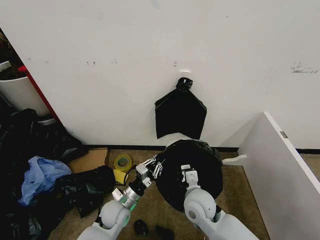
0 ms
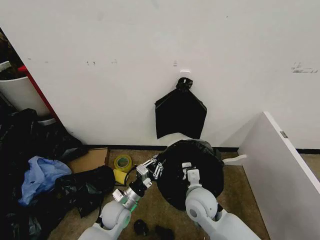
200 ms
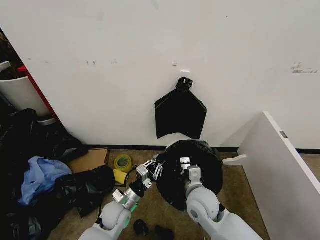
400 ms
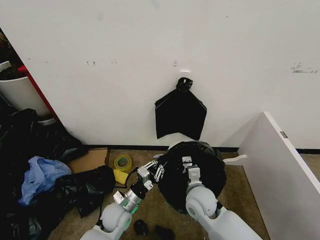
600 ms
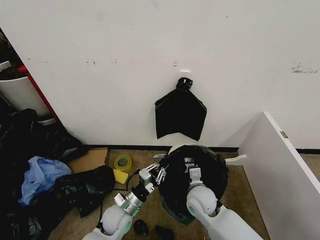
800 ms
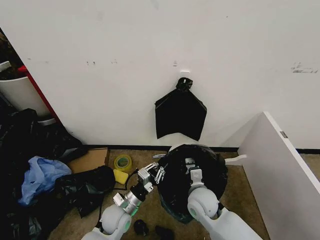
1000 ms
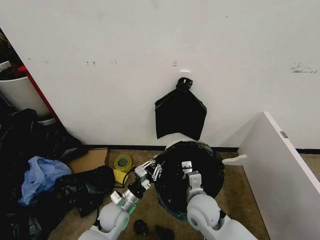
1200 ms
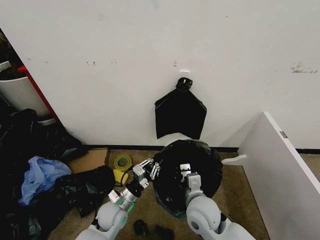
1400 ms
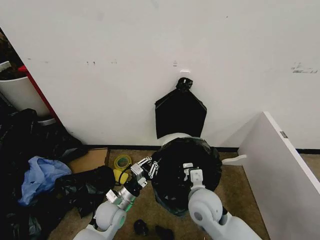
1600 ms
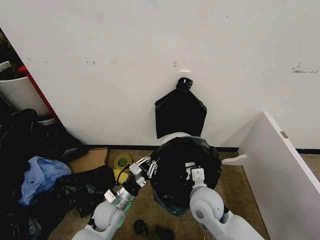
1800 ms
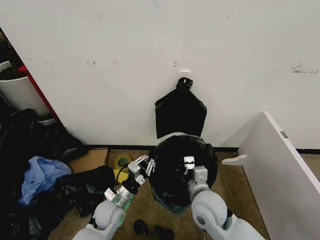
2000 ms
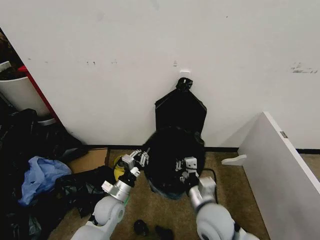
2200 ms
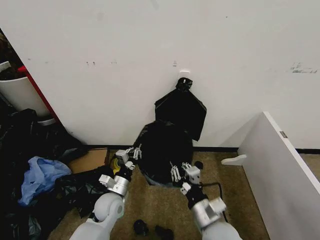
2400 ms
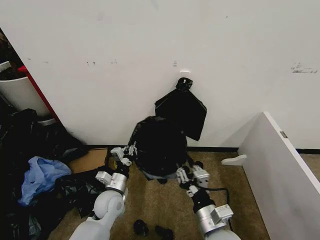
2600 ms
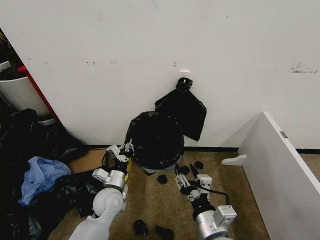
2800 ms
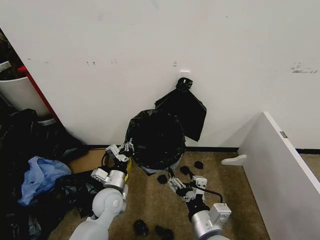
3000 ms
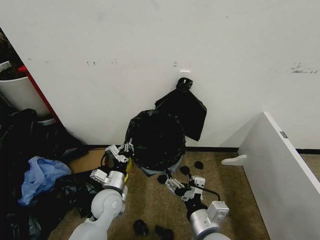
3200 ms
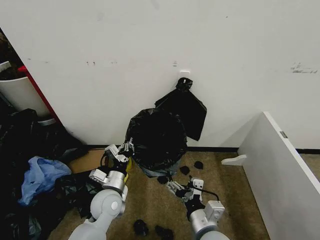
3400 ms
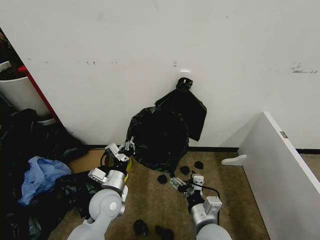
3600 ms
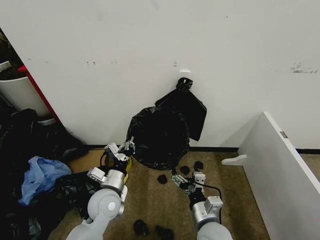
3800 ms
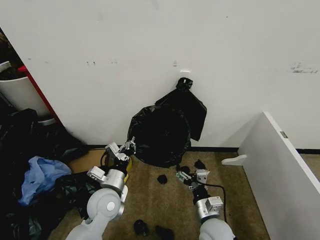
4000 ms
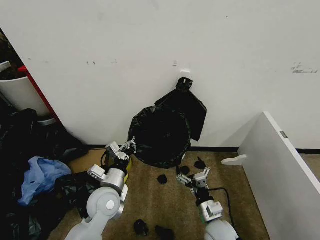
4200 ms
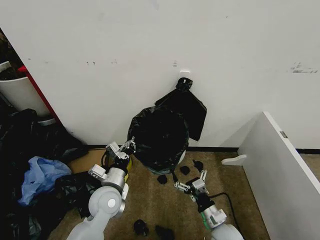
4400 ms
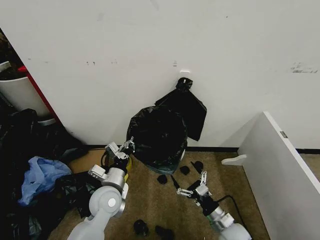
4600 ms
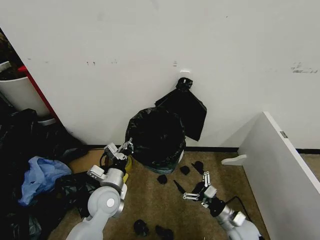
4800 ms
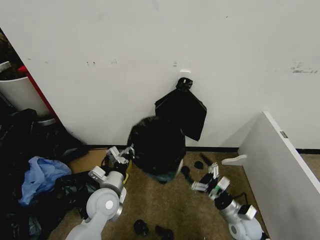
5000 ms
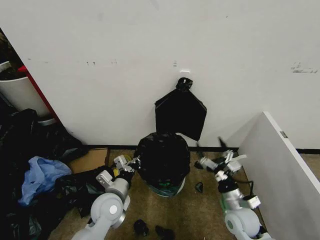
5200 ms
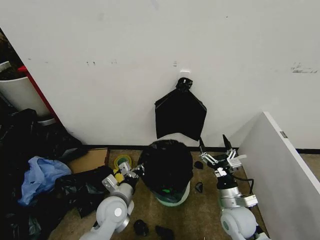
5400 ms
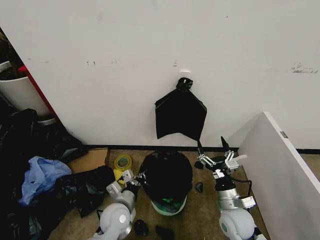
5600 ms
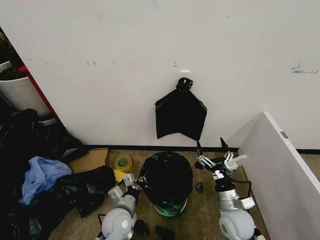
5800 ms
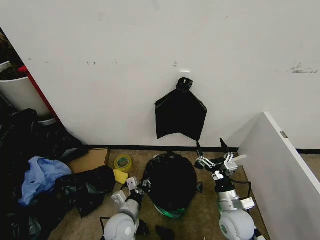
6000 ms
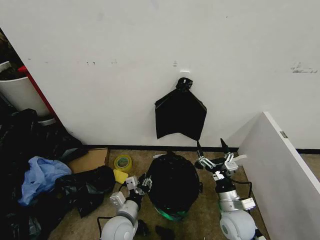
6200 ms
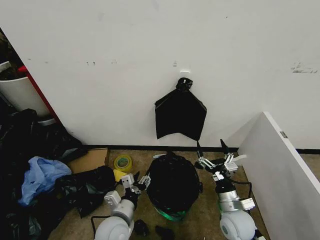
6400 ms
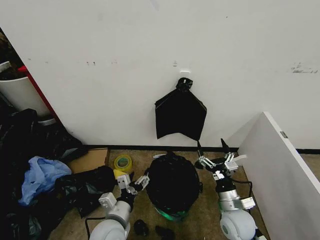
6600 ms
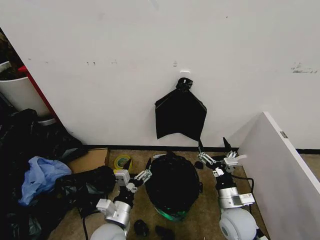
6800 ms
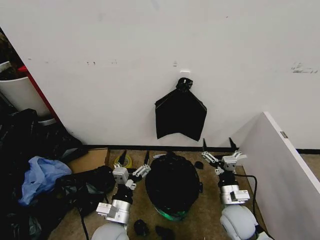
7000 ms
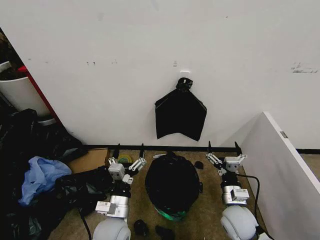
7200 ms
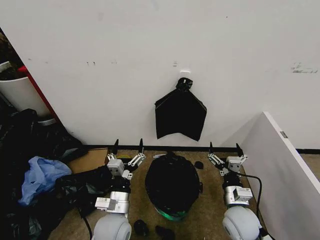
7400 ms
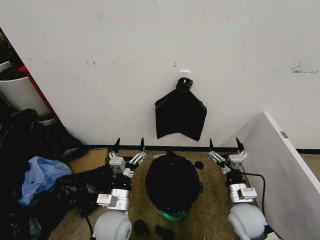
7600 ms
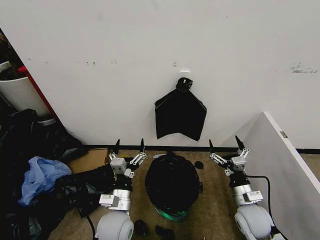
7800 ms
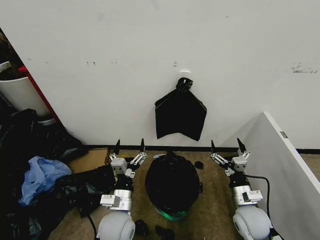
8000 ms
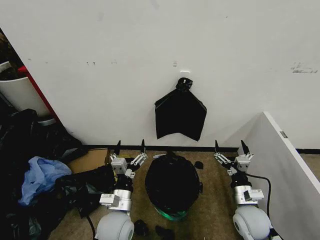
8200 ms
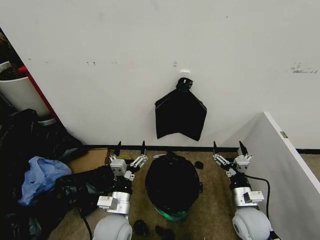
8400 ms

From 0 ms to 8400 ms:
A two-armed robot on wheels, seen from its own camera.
Task of the whole recording: Place the garbage bag over the trash bin.
From 0 ms to 1400 ms: There are only small adjustments of the grippers.
From 1400 ms to 2800 ms: The left gripper ends up some 5 cm from where it was, while the right gripper travels backward by roughly 10 cm, and opens up.
From 2800 ms to 4200 ms: The left gripper is displaced upward by roughly 5 cm; the right gripper is displaced downward and forward by roughly 15 cm, and opens.
From 4200 ms to 5600 ms: The right gripper goes roughly 5 cm to the right; the left gripper moves downward, approximately 10 cm.
From 5600 ms to 7000 ms: The left gripper moves backward, about 5 cm, and opens its fingers.
From 7000 ms to 8400 ms: The grippers move only a little.

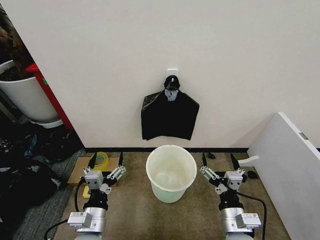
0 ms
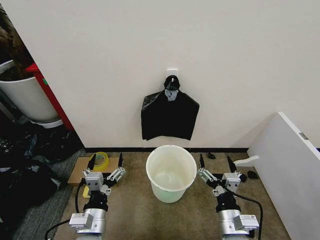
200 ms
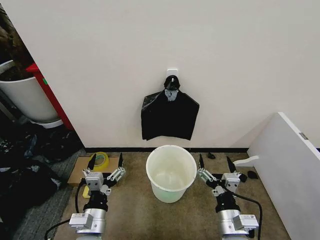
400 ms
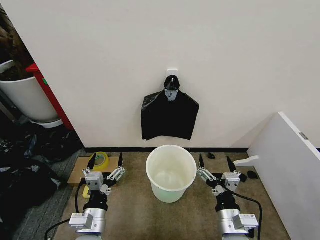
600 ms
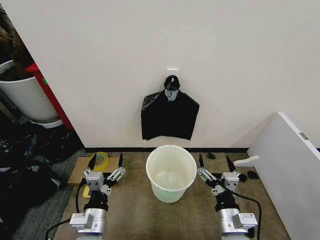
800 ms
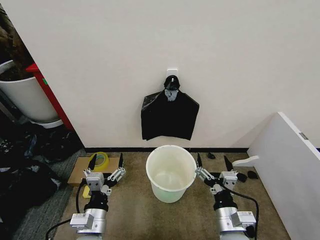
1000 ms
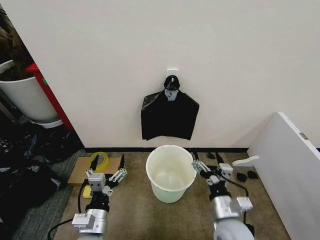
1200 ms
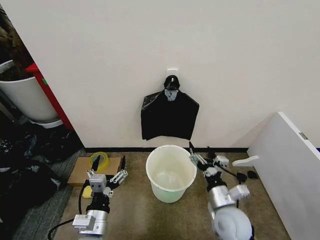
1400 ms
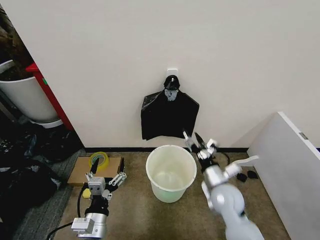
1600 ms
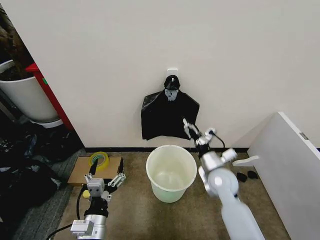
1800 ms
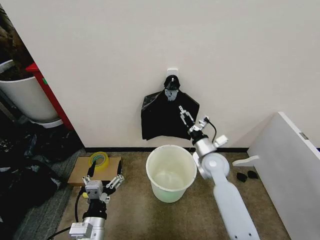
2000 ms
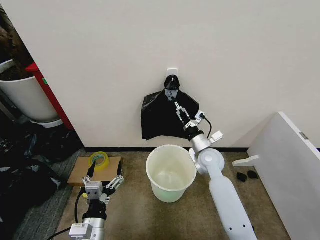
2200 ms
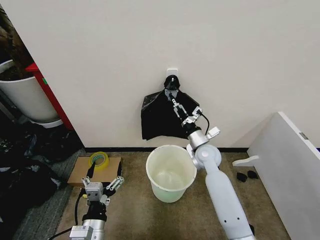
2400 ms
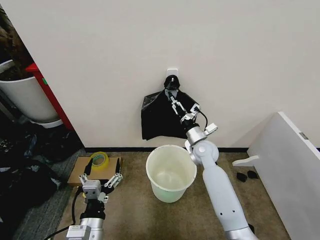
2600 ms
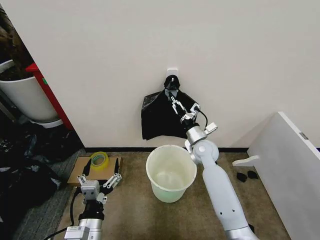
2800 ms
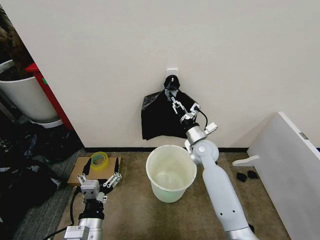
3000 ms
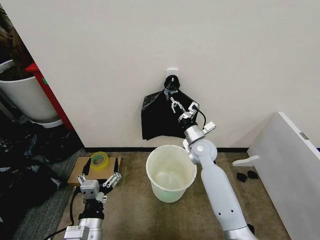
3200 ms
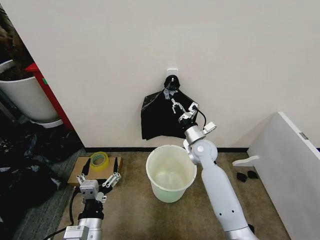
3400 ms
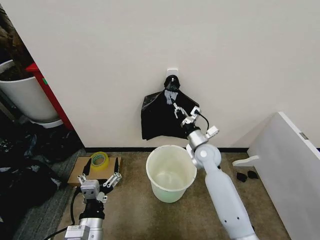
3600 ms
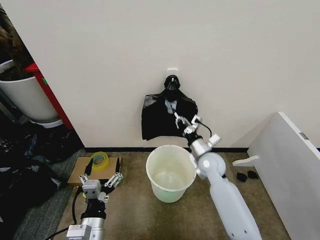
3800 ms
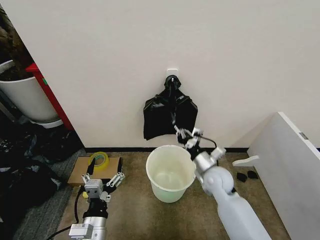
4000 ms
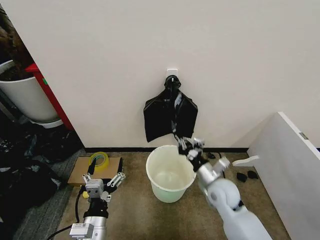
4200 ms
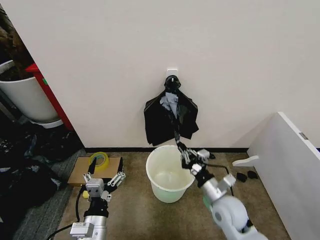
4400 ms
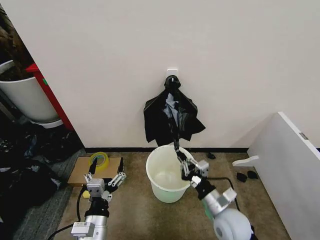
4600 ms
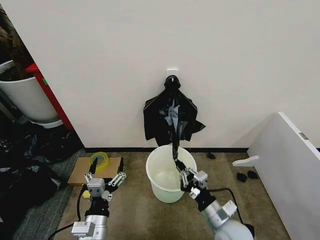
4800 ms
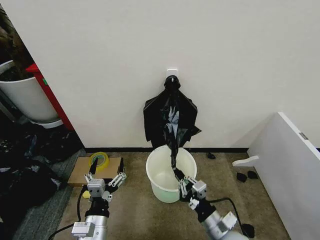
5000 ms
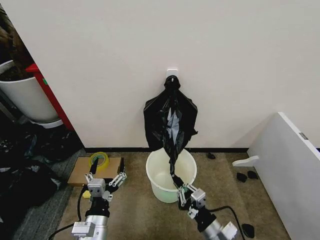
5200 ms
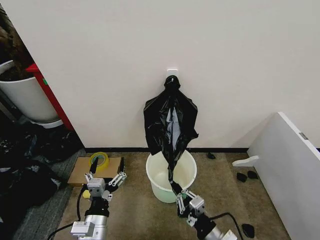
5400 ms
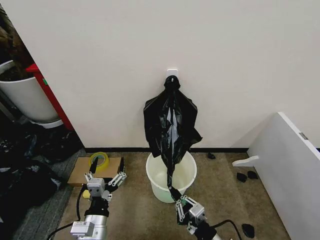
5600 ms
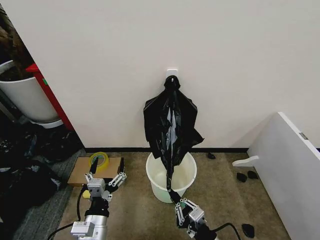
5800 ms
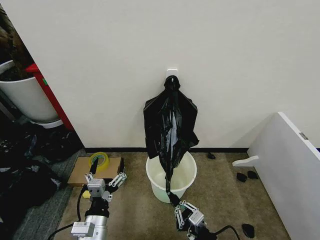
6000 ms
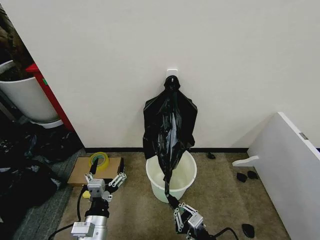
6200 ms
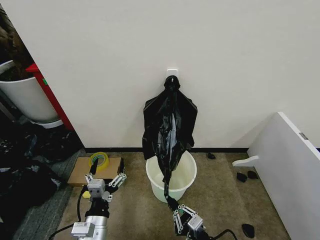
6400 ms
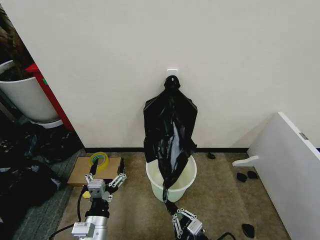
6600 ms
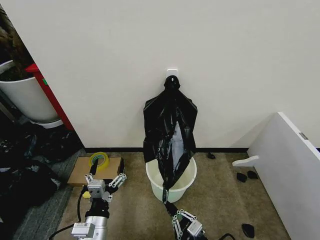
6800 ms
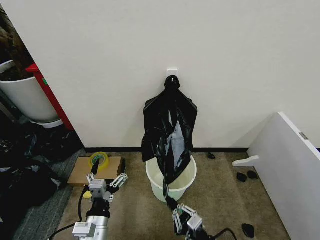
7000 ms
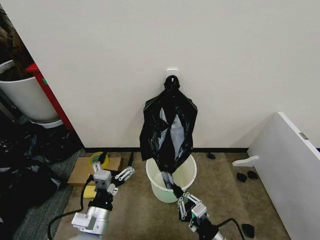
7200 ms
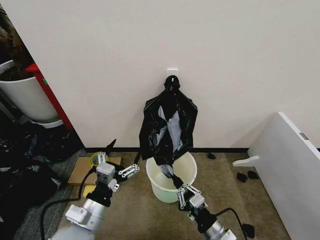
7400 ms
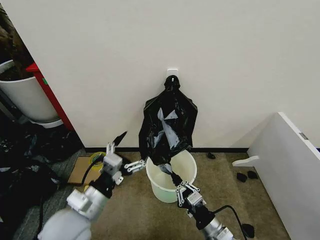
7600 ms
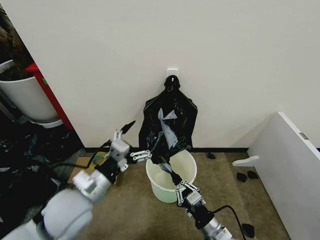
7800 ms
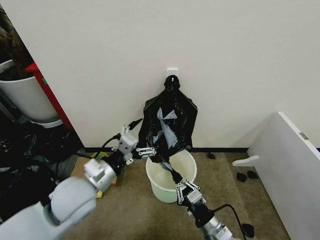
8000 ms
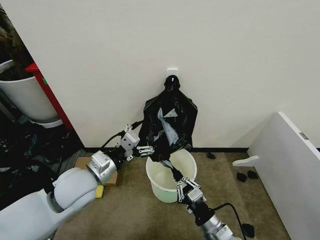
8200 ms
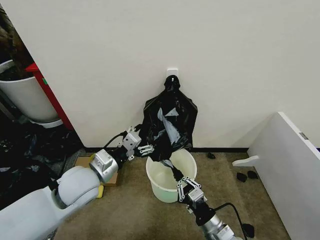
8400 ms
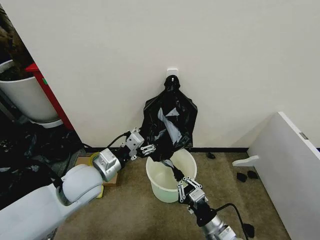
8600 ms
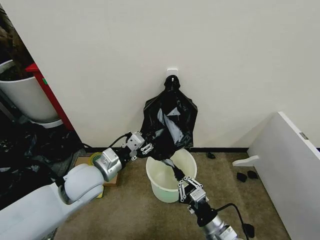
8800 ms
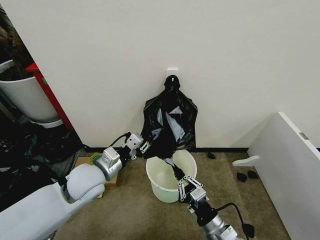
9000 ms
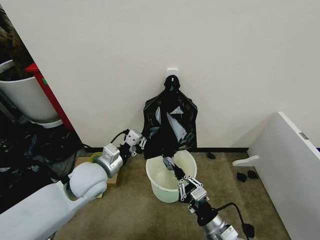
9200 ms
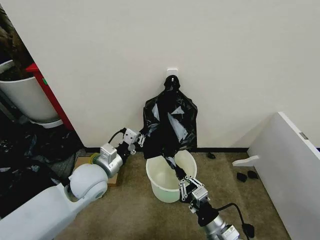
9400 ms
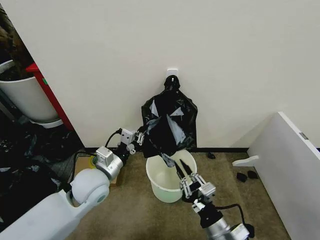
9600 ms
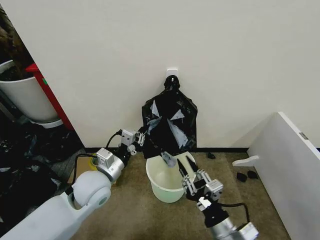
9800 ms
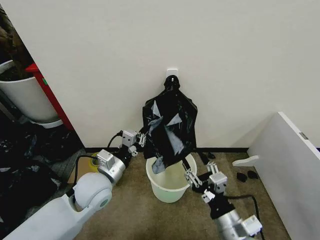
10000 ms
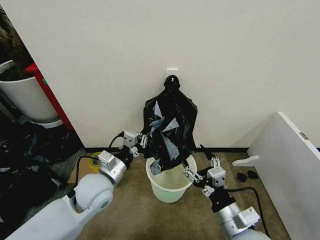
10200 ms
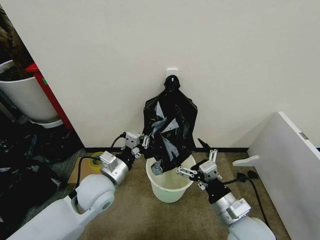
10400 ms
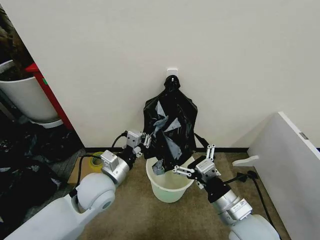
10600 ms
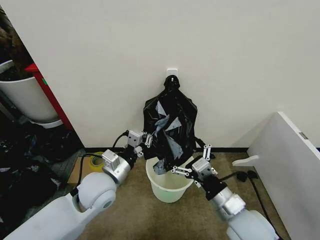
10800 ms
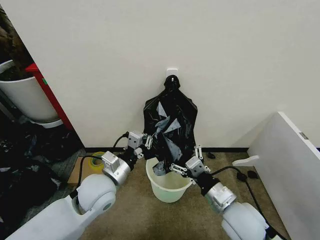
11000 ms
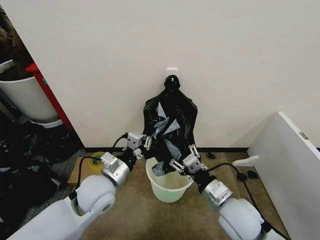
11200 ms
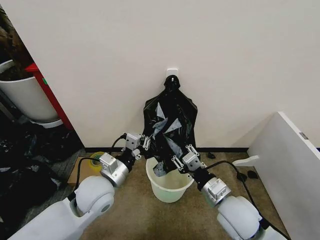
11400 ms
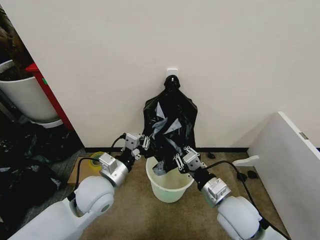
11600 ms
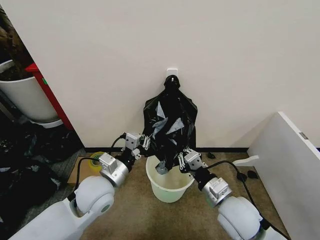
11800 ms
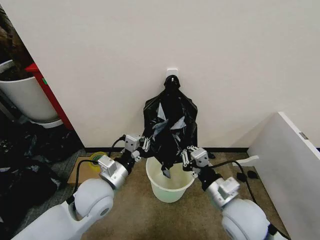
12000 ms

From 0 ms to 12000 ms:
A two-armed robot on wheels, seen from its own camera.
Task of the whole recording: Place the garbage bag over the trash bin.
From 1600 ms to 3000 ms: The right gripper is displaced forward by about 20 cm, and closes.
From 3000 ms to 4400 ms: The right gripper moves backward, about 20 cm, and closes its fingers.
From 4400 ms to 6000 ms: The right gripper goes about 15 cm backward.
From 6000 ms to 7600 ms: The left gripper moves upward, about 10 cm, while the right gripper travels forward by about 5 cm.
From 7600 ms to 9000 ms: The left gripper shifts roughly 10 cm forward, and closes.
From 9000 ms to 10400 ms: The right gripper goes approximately 10 cm upward, and opens its fingers.
From 10400 ms to 12000 ms: The right gripper closes its fingers.

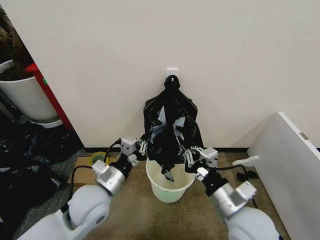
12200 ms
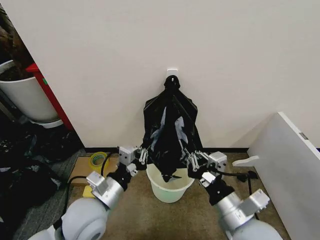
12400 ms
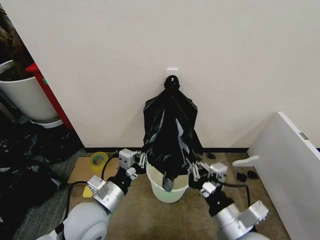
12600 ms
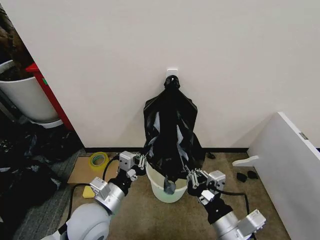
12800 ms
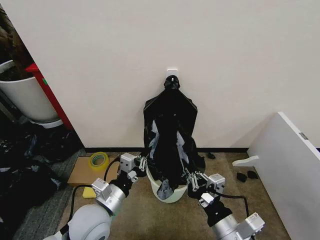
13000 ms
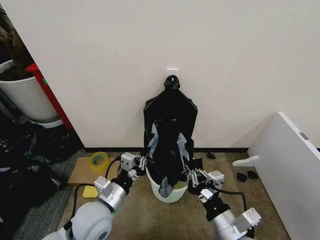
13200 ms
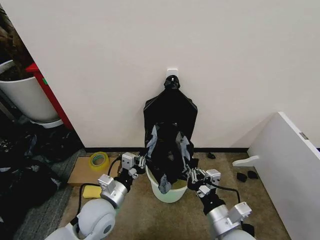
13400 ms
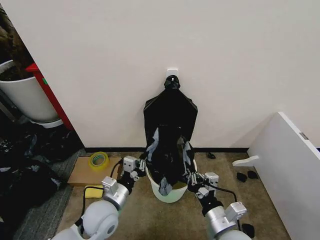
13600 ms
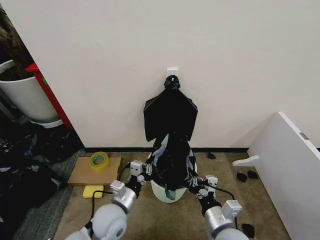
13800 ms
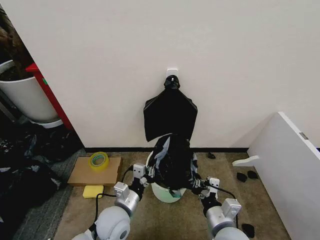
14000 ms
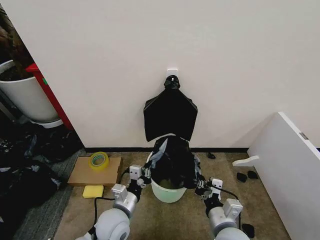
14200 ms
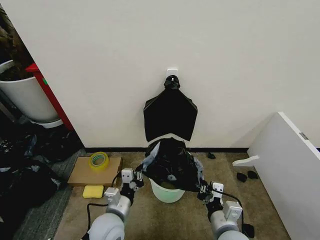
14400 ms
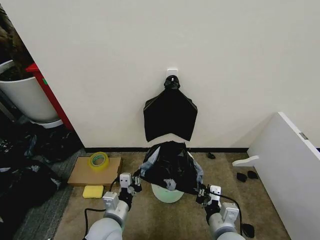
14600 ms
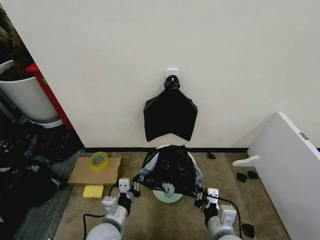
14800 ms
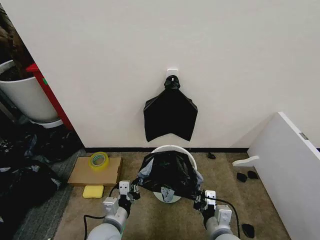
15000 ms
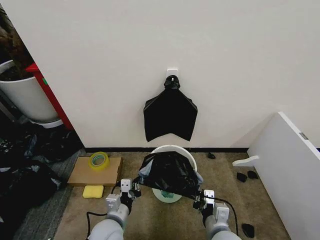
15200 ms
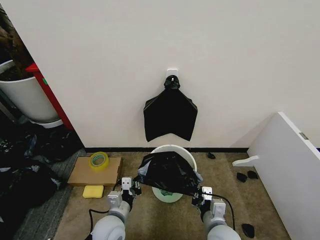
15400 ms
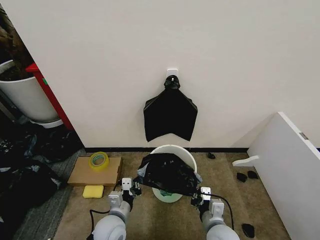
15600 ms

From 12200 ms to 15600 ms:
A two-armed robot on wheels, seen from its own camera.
Task of the whole recording: Place the garbage bag over the trash bin.
From 12200 ms to 13800 ms: Both grippers travel together downward, some 10 cm.
From 13800 ms to 15600 ms: The grippers both shift downward by some 5 cm.
